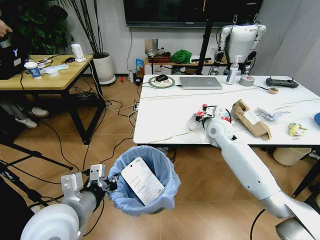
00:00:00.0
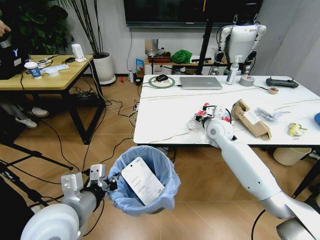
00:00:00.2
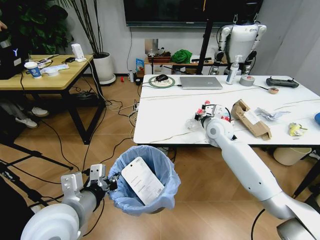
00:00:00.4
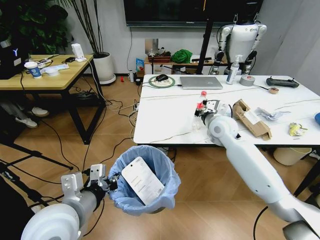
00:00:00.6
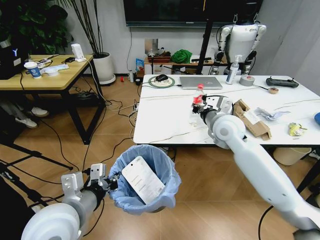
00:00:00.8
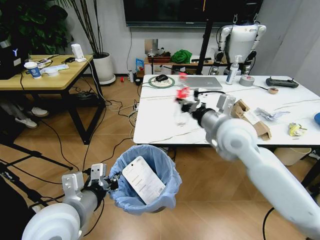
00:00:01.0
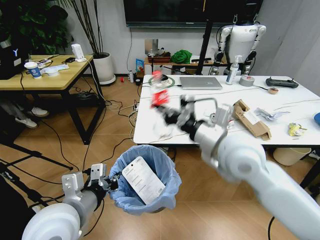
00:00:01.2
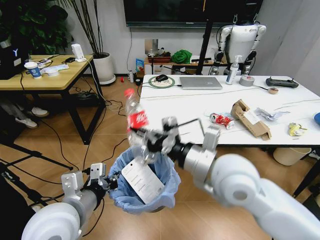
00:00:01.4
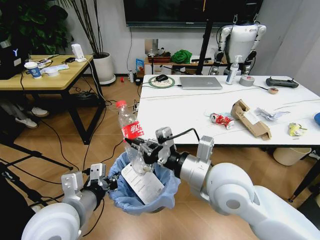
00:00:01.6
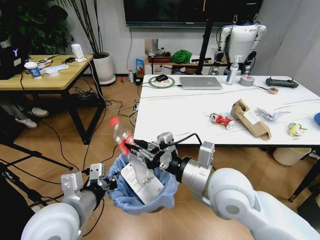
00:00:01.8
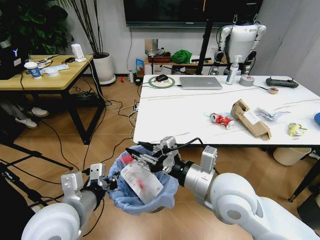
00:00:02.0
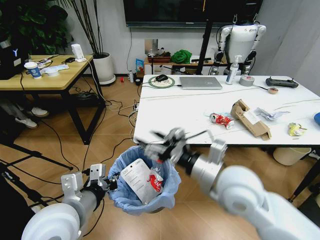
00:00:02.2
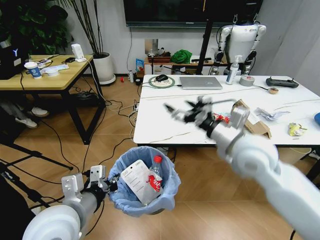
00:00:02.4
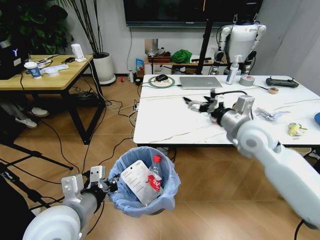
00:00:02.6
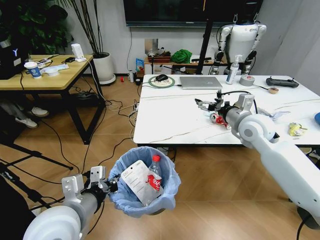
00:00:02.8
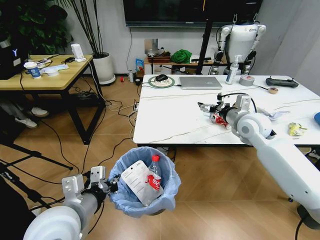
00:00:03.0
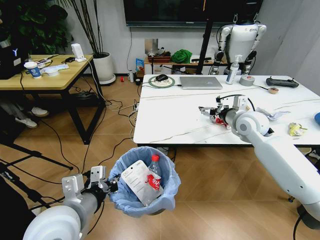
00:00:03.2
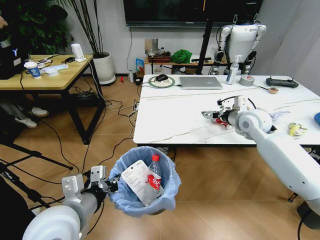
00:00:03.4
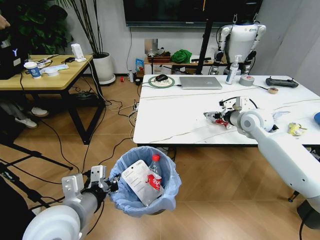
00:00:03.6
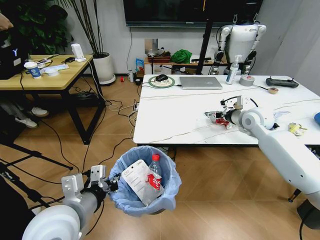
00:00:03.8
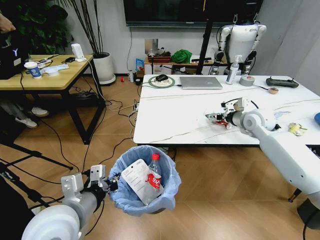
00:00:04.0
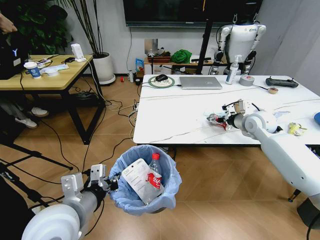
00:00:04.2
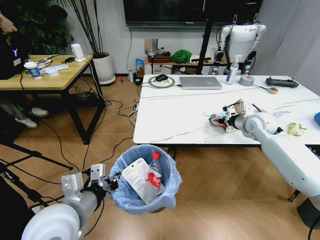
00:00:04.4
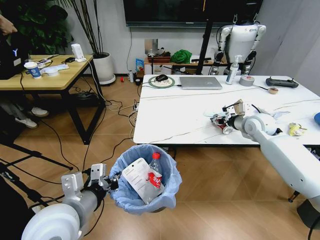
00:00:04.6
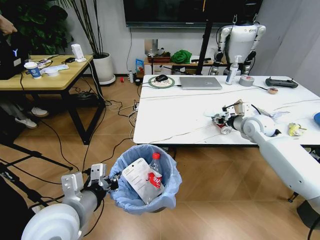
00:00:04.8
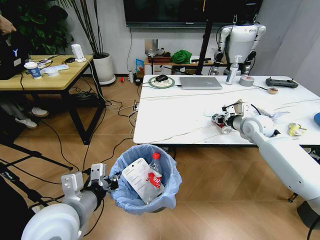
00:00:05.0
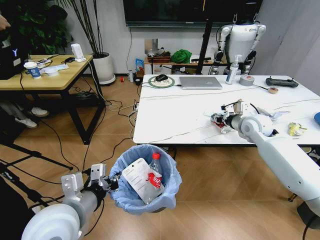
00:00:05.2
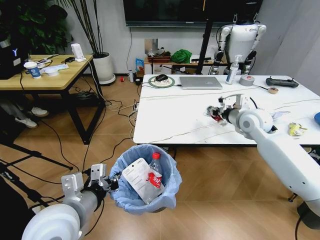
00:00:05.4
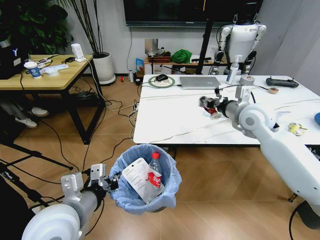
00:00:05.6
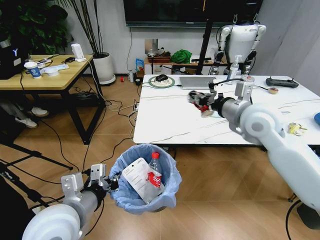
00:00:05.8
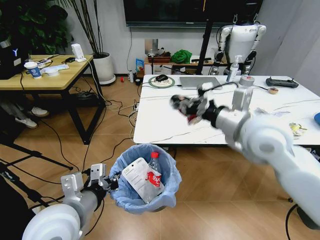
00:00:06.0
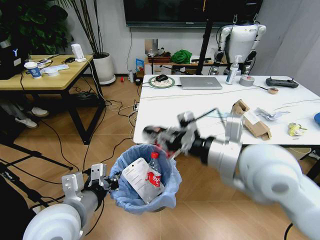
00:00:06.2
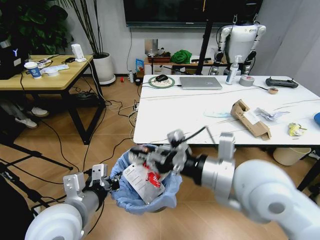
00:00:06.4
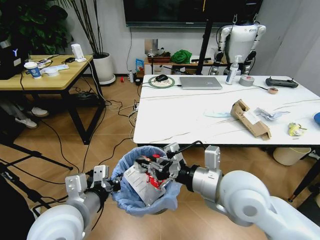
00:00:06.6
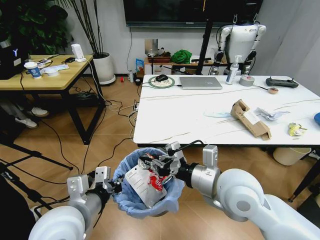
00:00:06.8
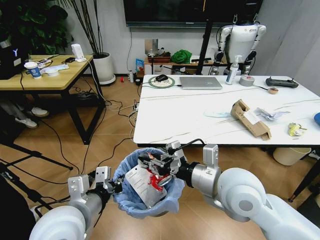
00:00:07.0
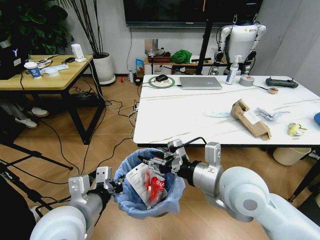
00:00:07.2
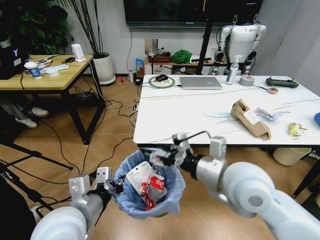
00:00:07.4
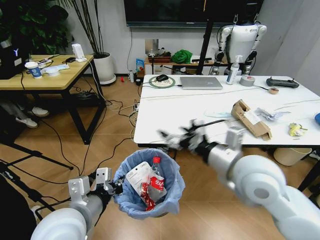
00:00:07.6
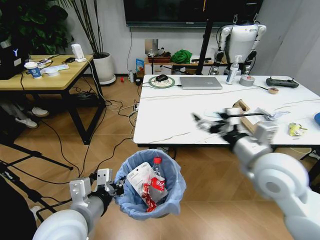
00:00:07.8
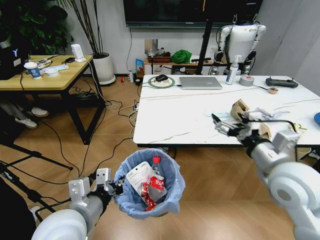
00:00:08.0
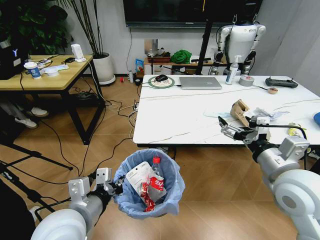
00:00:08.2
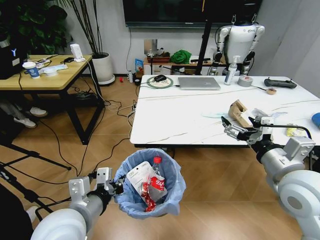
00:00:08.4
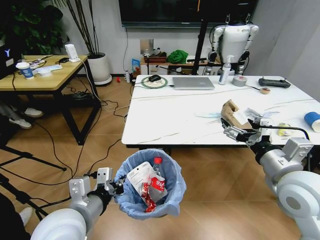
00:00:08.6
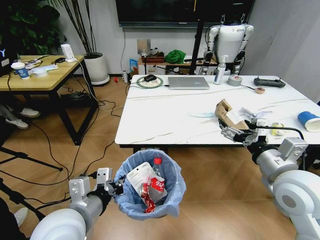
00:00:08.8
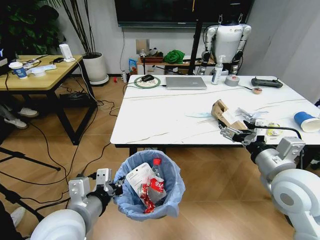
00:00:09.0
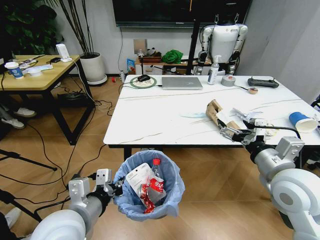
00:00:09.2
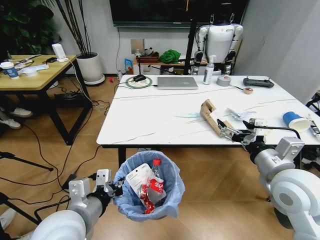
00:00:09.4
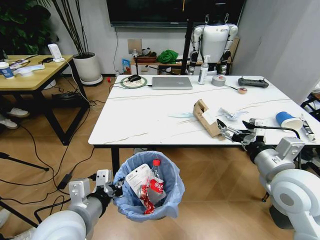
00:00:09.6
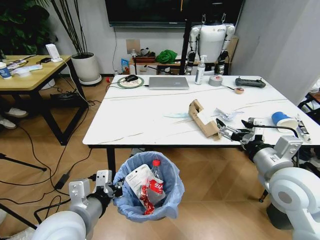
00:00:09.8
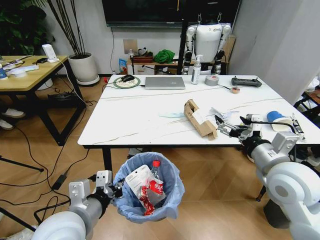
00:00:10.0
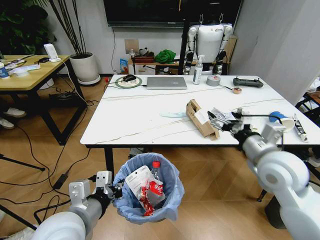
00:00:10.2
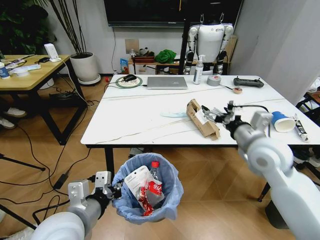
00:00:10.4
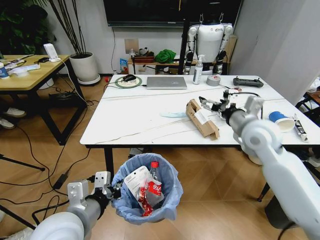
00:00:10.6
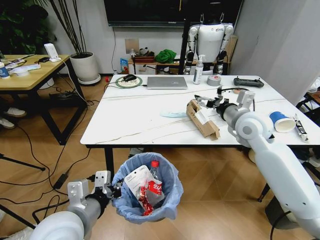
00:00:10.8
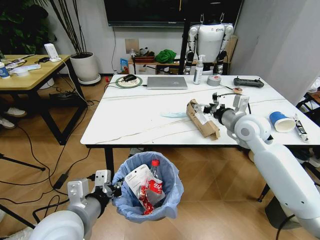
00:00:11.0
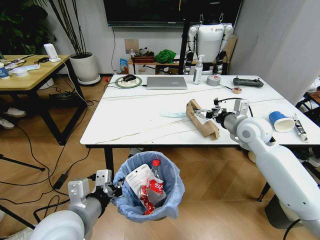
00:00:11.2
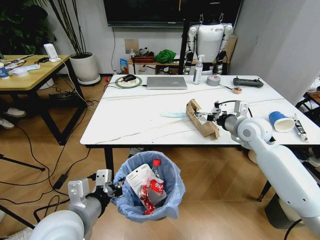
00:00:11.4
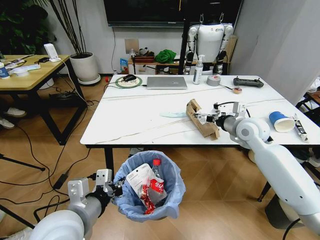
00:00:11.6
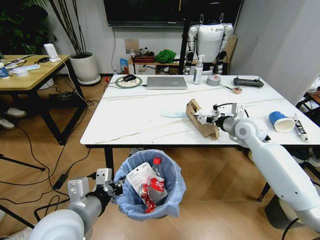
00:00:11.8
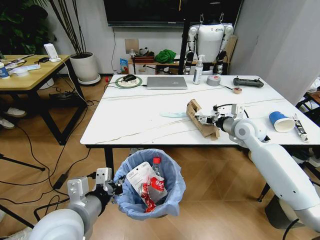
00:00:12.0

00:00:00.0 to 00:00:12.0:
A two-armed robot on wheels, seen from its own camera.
Task of the whole recording: Pick up the trash bin and place the trash from the table into it.
00:00:00.0 to 00:00:01.6: The right gripper moves backward, about 25 cm, and closes its fingers.
00:00:01.6 to 00:00:03.0: The right gripper travels forward and to the right by roughly 25 cm, and opens its fingers.
00:00:03.0 to 00:00:04.4: The right gripper is displaced to the right by roughly 5 cm.
00:00:04.4 to 00:00:06.0: The right gripper shifts about 30 cm backward, to the left and upward, and closes up.
00:00:06.0 to 00:00:07.6: The right gripper goes some 10 cm downward and backward, and opens up.
00:00:07.6 to 00:00:09.0: The right gripper travels to the right by about 10 cm.
00:00:09.0 to 00:00:10.4: The right gripper shifts some 5 cm forward.
00:00:10.4 to 00:00:12.0: The right gripper shifts roughly 15 cm forward.

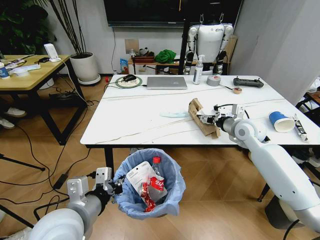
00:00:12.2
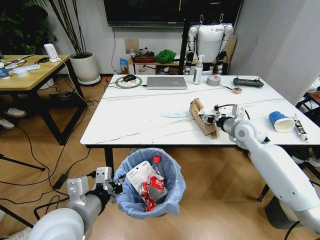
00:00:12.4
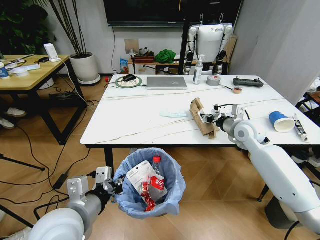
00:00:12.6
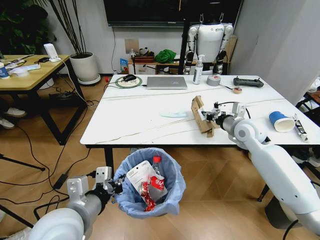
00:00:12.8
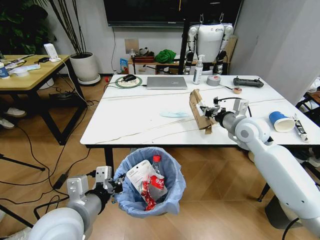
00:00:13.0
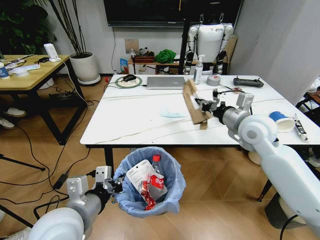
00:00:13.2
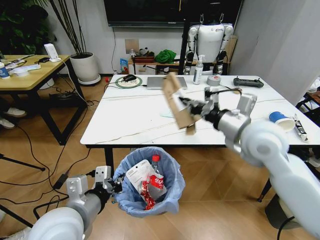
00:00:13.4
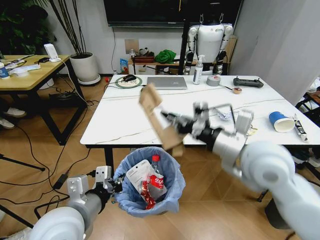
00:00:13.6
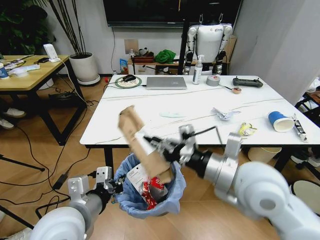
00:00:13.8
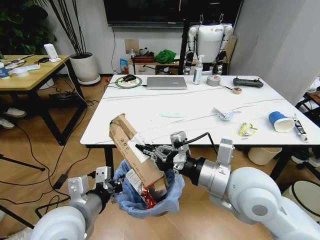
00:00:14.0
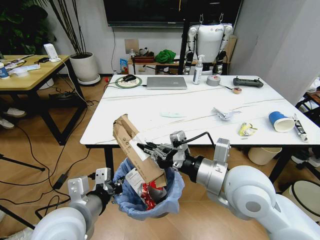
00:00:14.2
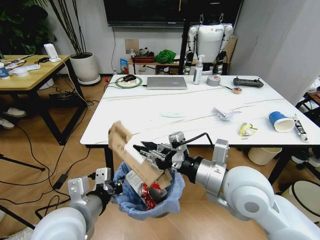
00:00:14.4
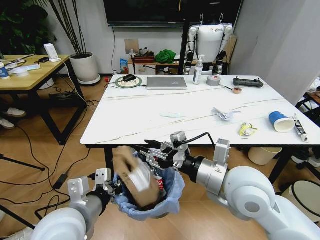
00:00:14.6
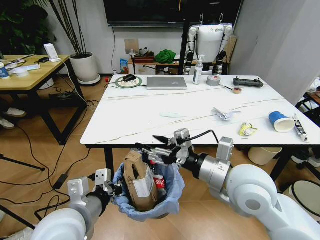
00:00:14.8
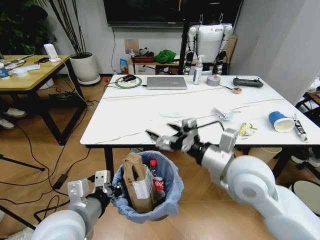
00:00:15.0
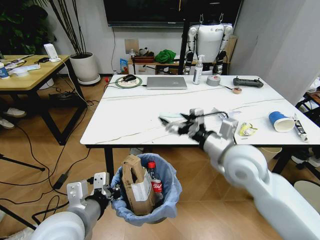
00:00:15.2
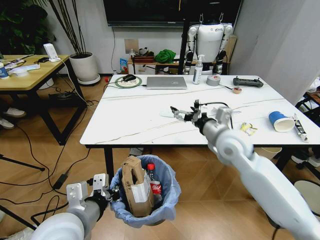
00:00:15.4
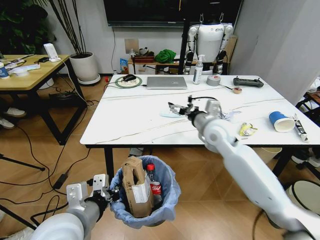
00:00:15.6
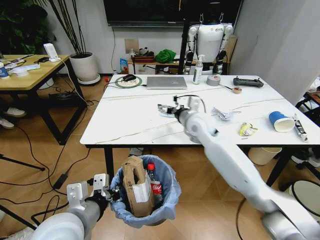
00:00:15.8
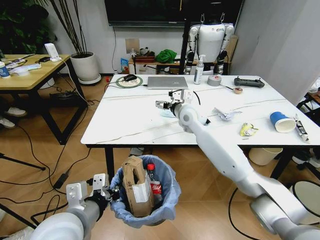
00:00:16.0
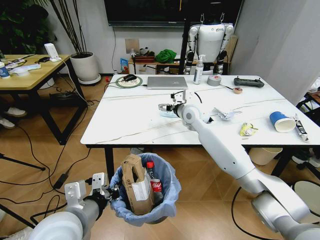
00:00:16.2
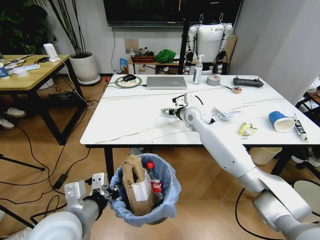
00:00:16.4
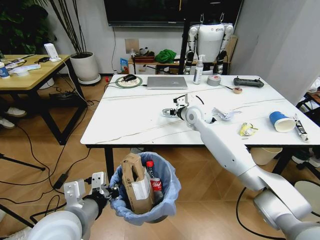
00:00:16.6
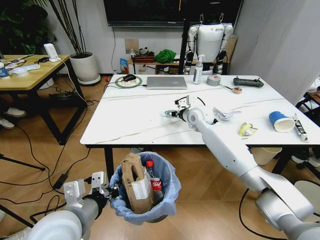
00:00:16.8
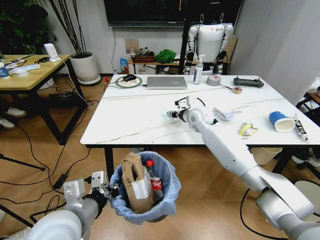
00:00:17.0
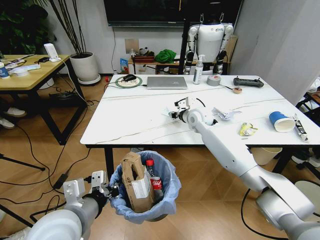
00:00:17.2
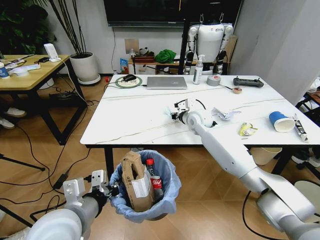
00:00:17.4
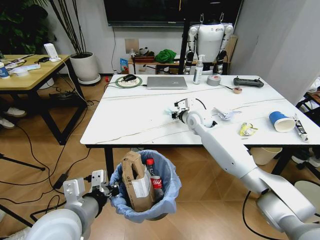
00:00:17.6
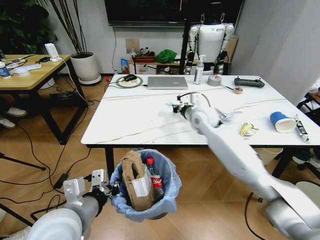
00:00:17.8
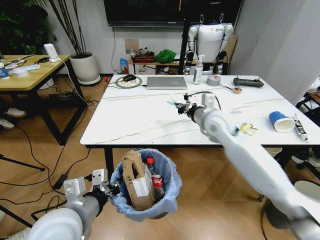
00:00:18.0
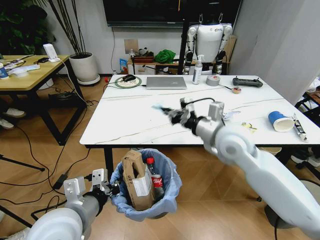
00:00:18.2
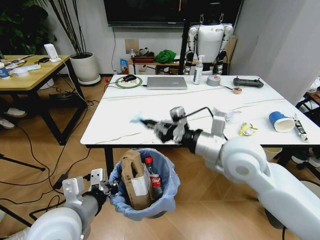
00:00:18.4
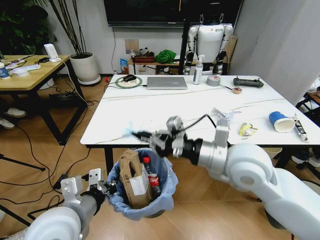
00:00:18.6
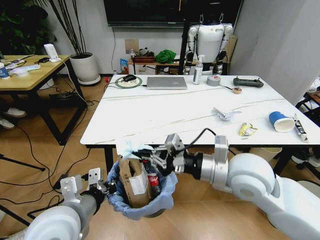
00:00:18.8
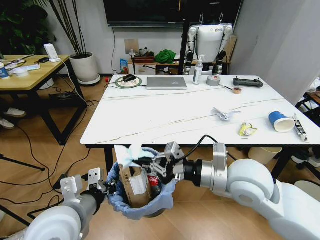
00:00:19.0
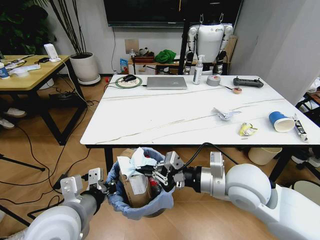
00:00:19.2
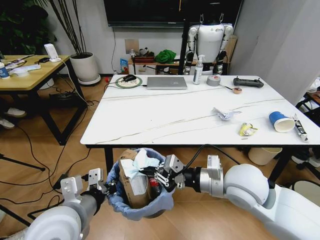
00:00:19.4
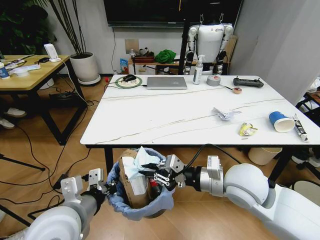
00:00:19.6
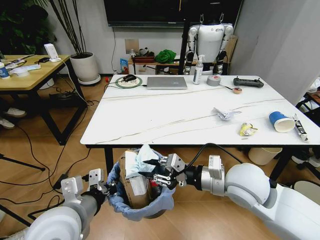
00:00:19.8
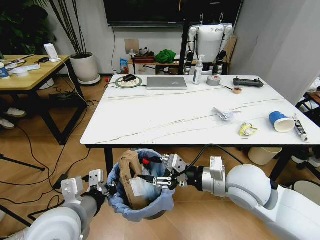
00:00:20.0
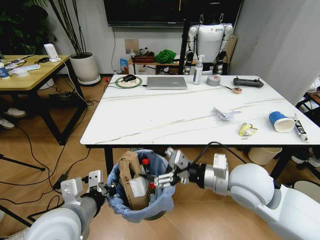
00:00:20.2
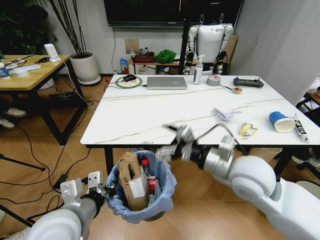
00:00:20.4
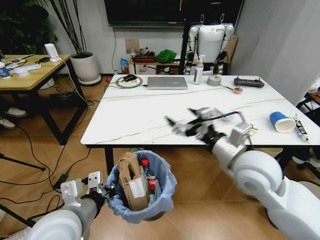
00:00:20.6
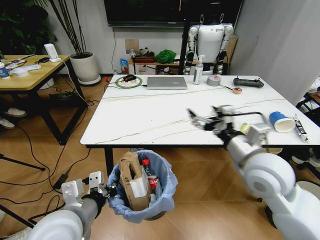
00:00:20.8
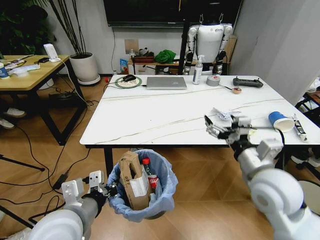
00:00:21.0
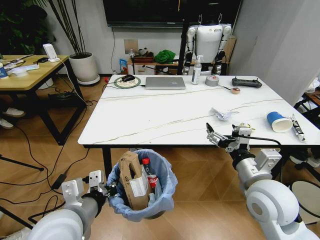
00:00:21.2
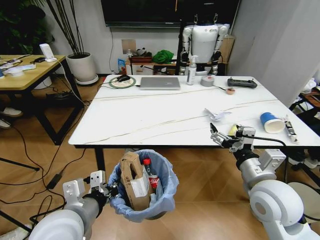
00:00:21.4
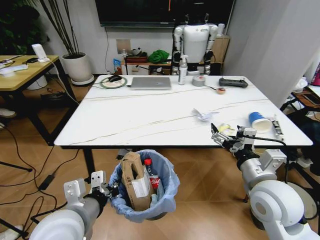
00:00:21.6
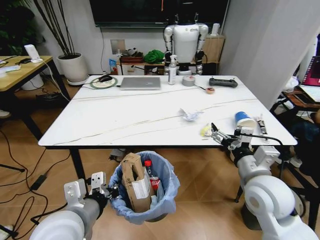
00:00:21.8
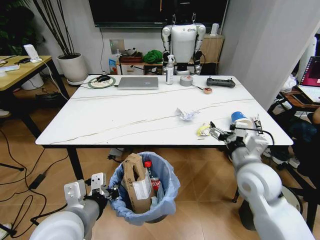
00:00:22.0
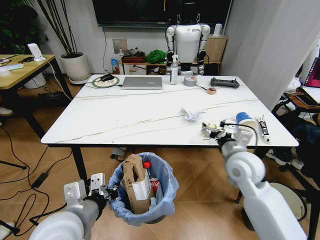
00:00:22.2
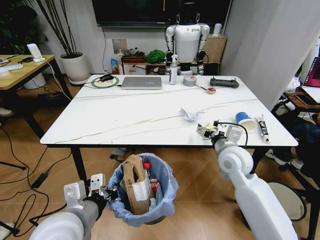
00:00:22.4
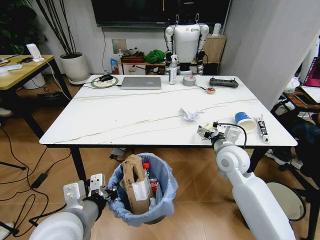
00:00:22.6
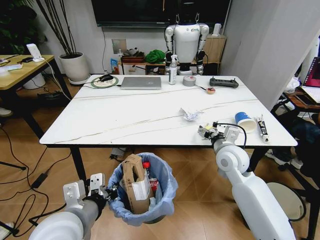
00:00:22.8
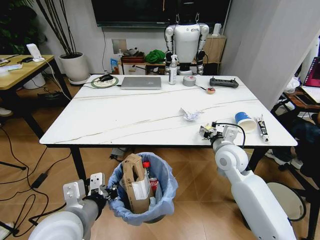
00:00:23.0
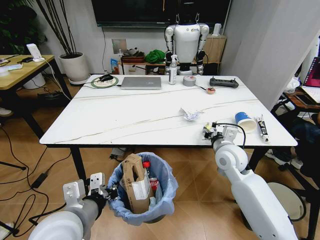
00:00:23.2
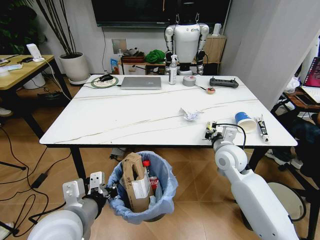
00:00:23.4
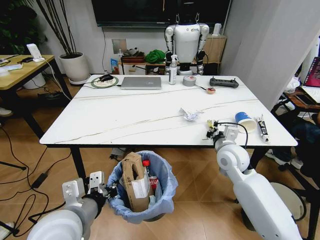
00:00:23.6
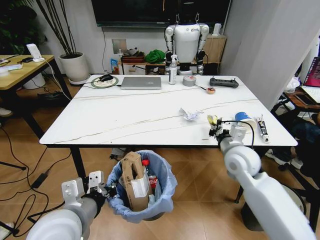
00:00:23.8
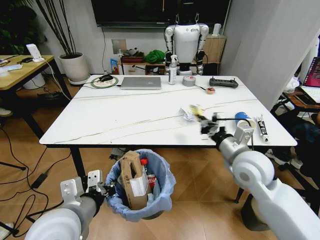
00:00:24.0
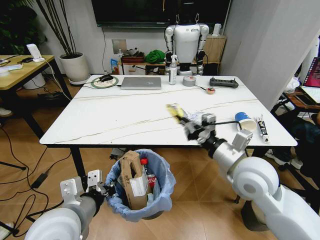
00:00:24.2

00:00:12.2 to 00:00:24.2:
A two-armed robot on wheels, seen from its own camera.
Task of the whole recording: Pick up the trash bin and place the trash from the table into it.
00:00:12.2 to 00:00:13.8: The right gripper moves backward and to the left, some 25 cm, and closes.
00:00:13.8 to 00:00:15.2: The right gripper goes some 10 cm forward, and opens up.
00:00:15.2 to 00:00:16.6: The right gripper moves forward, about 25 cm.
00:00:16.6 to 00:00:18.2: The right gripper heads backward, covering about 20 cm, and closes up.
00:00:18.2 to 00:00:19.8: The right gripper heads backward and downward, covering about 10 cm.
00:00:19.8 to 00:00:21.2: The right gripper ends up roughly 5 cm from where it was, and opens its fingers.
00:00:21.2 to 00:00:22.6: The right gripper is displaced forward by some 15 cm.
00:00:22.6 to 00:00:24.2: The right gripper is displaced backward and upward by approximately 10 cm, and closes its fingers.
